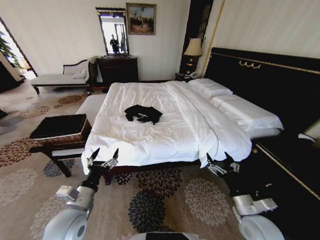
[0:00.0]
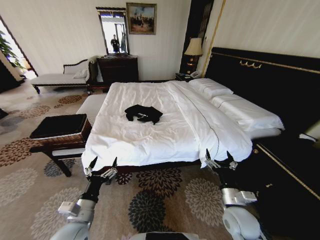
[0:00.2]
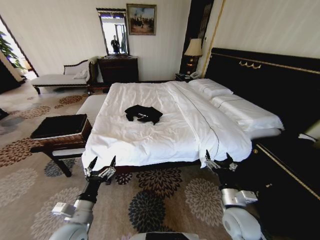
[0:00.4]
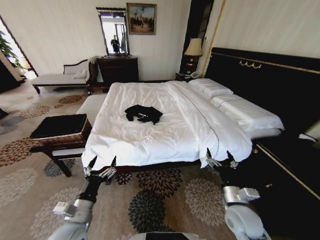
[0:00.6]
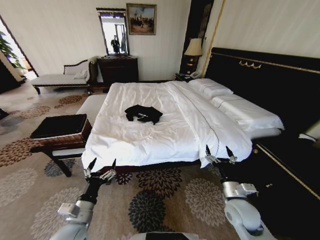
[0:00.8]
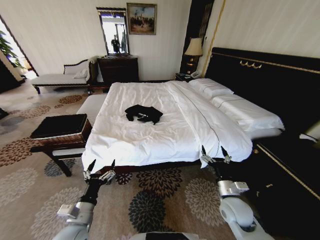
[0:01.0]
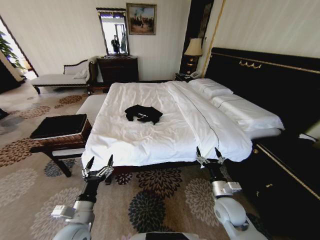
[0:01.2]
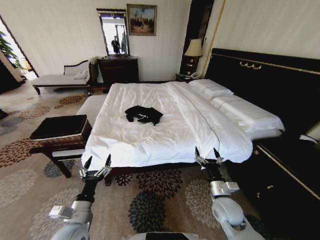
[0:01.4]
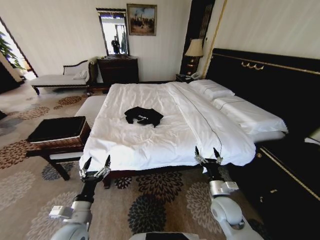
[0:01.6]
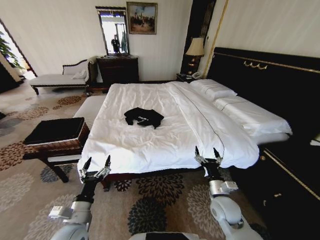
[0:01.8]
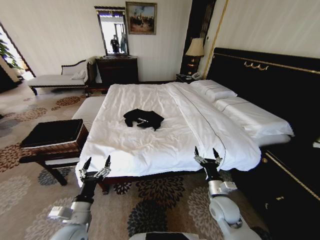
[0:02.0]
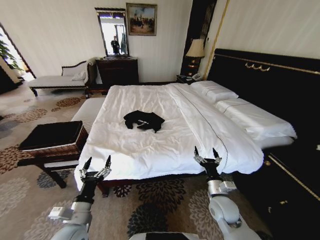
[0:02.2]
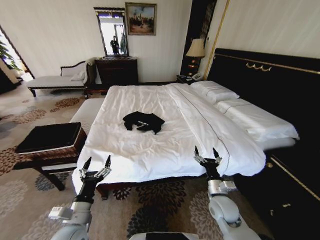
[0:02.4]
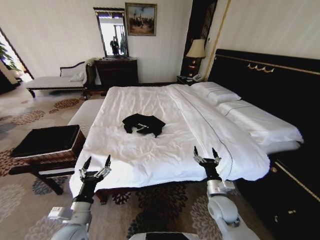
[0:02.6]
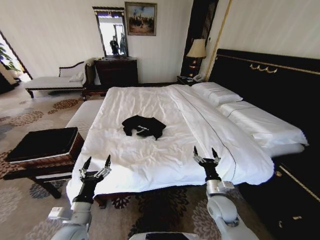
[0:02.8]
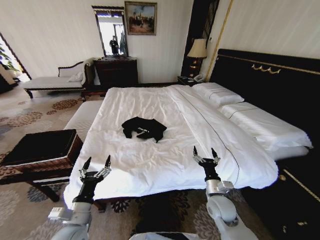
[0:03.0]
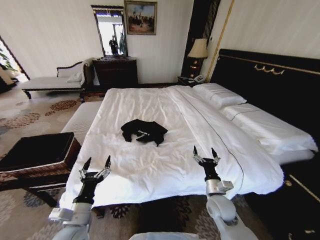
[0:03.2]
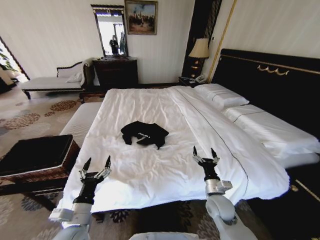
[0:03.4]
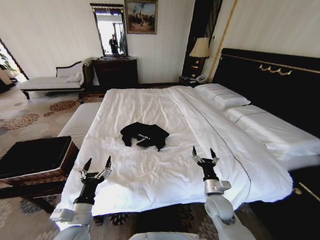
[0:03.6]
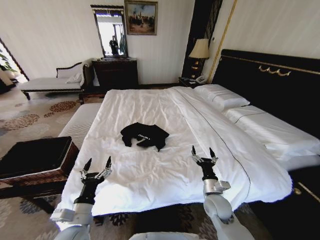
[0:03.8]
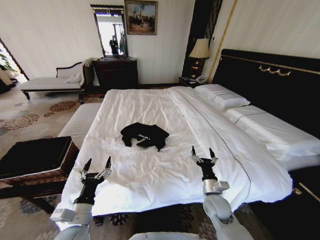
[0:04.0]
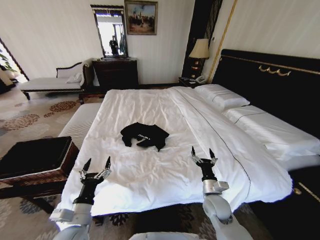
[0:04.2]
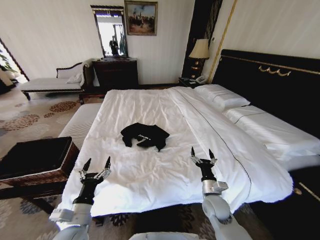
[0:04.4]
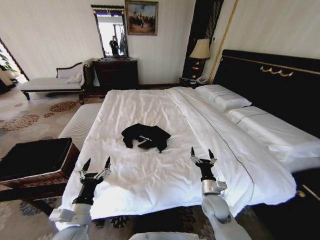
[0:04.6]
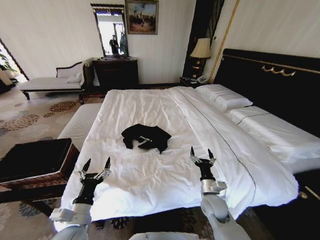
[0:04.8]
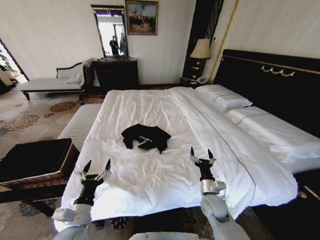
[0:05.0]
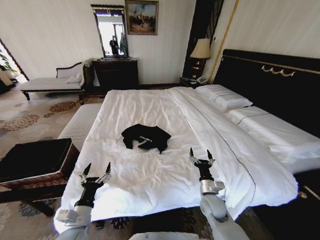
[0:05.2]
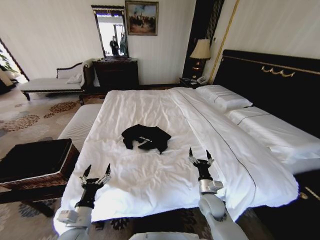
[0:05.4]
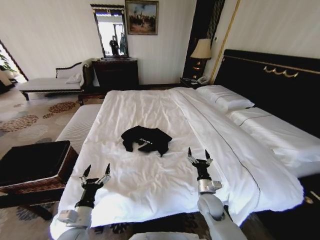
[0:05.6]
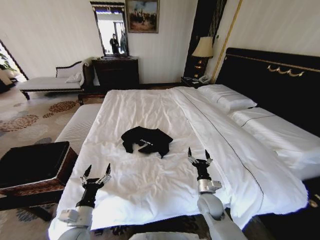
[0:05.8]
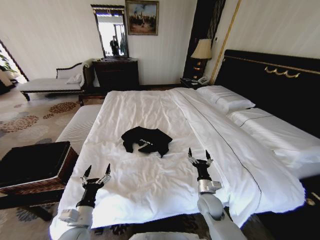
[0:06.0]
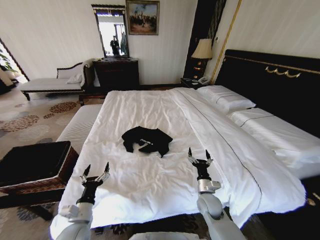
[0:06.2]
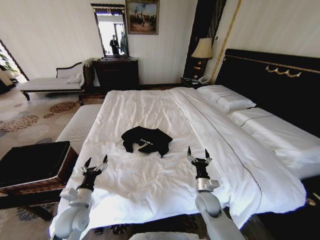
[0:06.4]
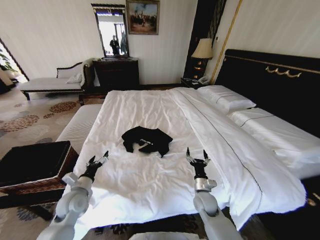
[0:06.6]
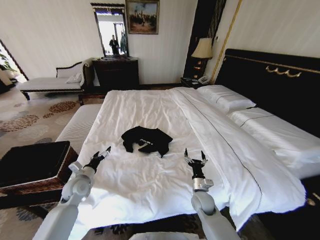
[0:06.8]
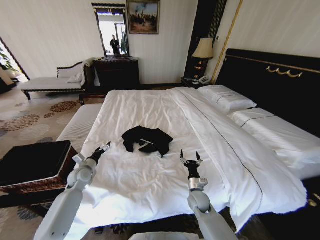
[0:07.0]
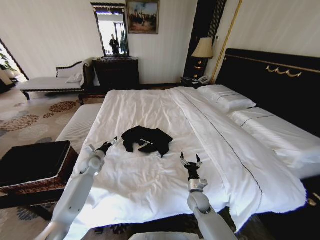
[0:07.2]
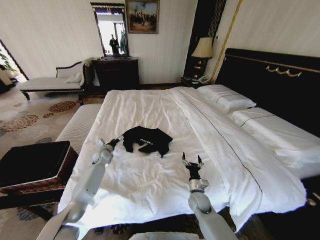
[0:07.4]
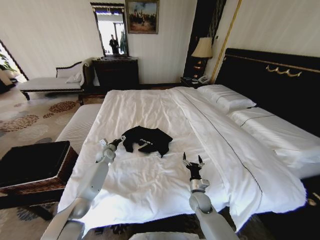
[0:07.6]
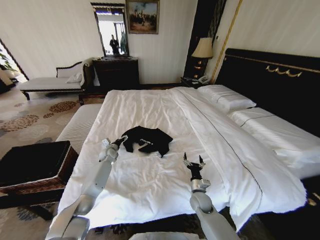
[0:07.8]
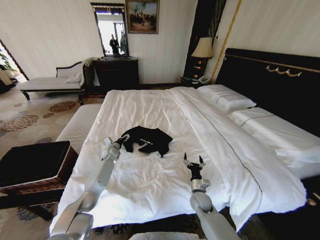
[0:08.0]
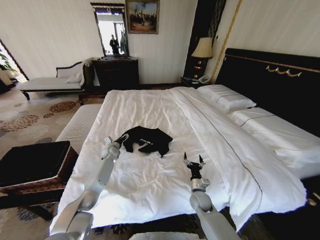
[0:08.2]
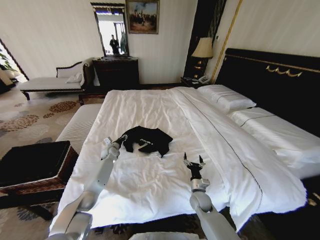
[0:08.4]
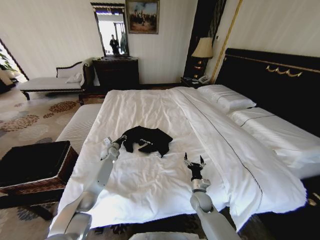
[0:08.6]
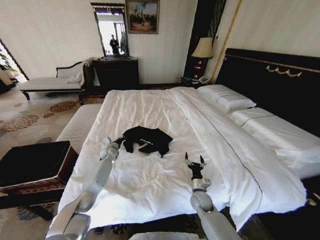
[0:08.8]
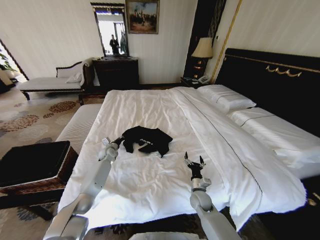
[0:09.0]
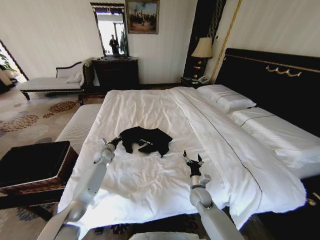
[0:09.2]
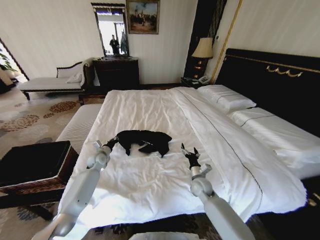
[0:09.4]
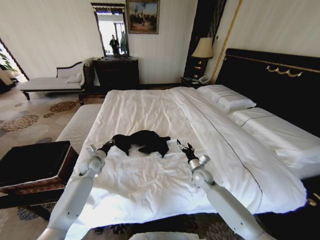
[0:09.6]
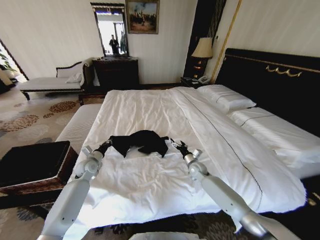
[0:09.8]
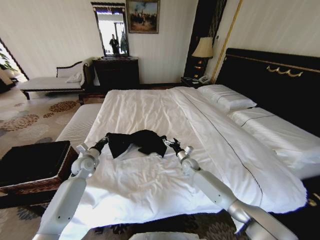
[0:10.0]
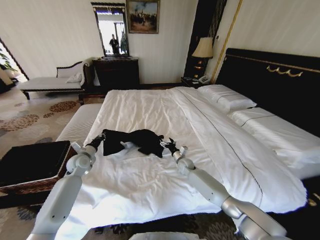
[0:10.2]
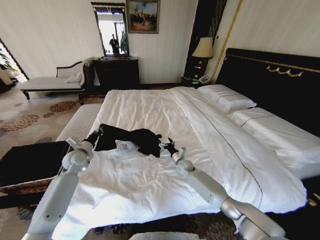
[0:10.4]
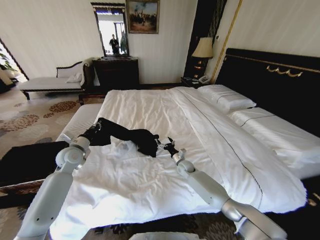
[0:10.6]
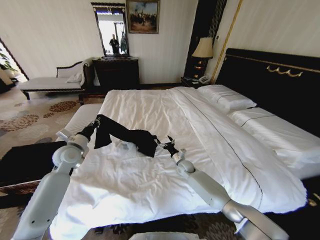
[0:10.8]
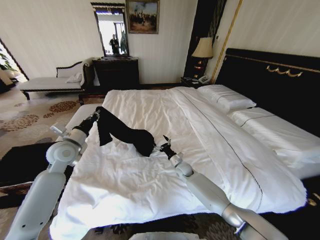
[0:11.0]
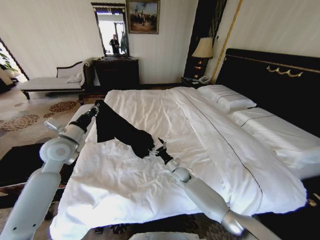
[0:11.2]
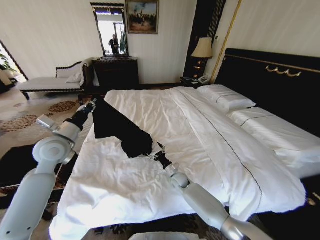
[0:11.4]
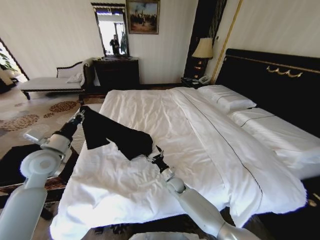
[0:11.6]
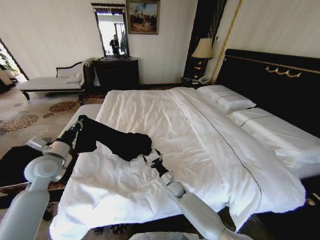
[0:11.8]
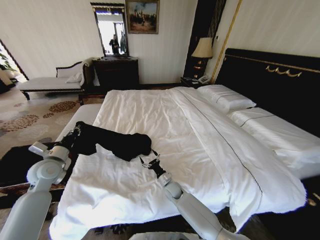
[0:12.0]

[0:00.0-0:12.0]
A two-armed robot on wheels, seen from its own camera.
Task of the whole recording: Fold the clothes on the bed and place them into the basket.
0:06.0 to 0:07.6: The right gripper moves downward, about 5 cm. Meanwhile the left gripper travels forward by approximately 40 cm.
0:07.6 to 0:09.0: The left gripper closes up.
0:09.0 to 0:10.4: The right gripper goes some 20 cm forward. Meanwhile the left gripper is displaced upward, backward and to the left by some 20 cm.
0:10.4 to 0:12.0: The right gripper shifts approximately 15 cm backward, to the left and downward, while the left gripper is displaced backward and upward by approximately 10 cm.

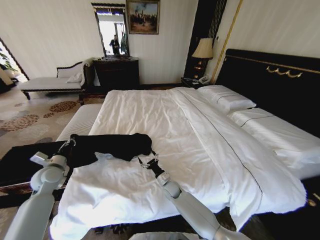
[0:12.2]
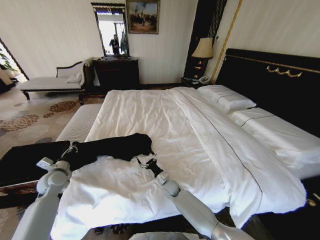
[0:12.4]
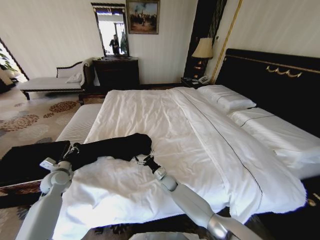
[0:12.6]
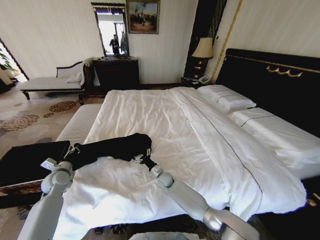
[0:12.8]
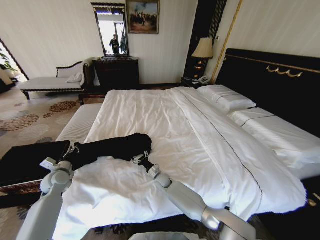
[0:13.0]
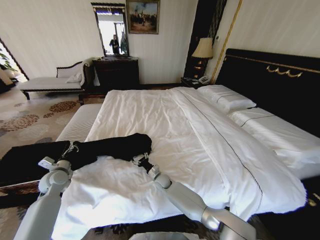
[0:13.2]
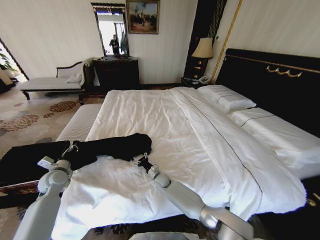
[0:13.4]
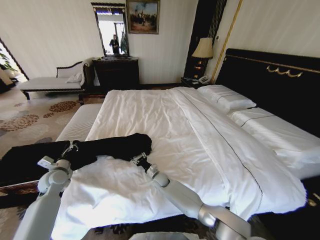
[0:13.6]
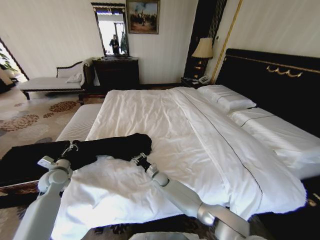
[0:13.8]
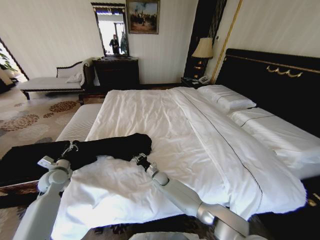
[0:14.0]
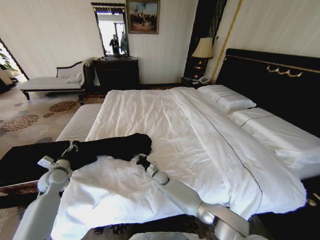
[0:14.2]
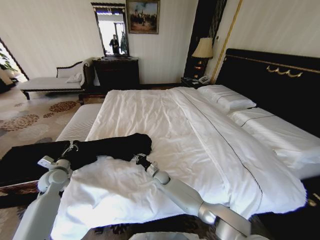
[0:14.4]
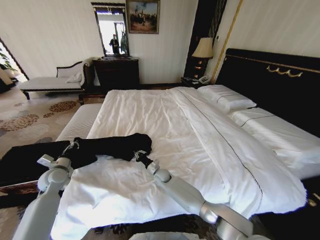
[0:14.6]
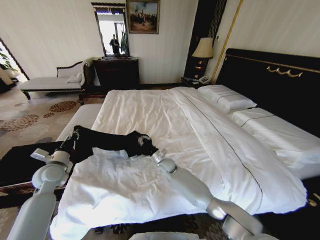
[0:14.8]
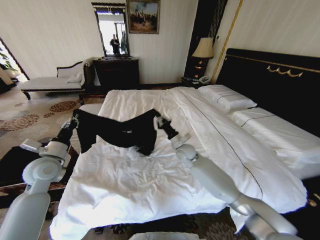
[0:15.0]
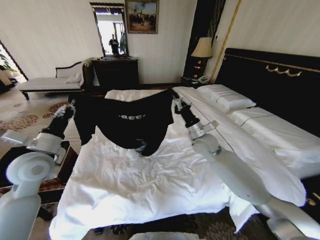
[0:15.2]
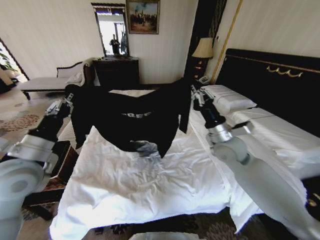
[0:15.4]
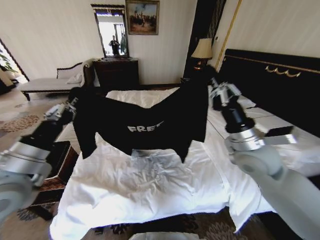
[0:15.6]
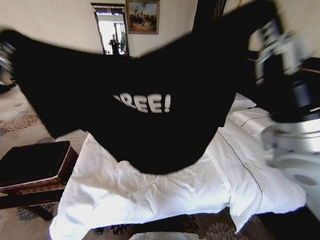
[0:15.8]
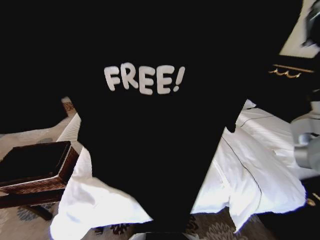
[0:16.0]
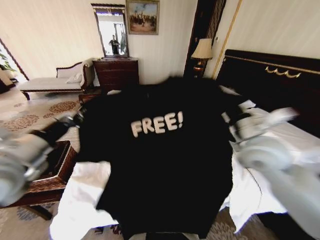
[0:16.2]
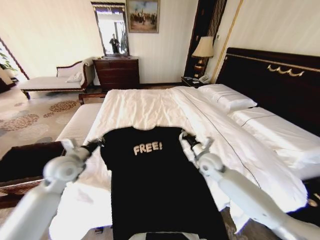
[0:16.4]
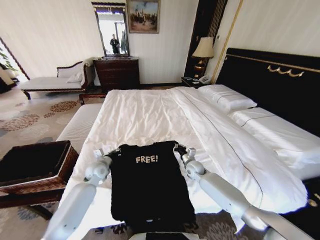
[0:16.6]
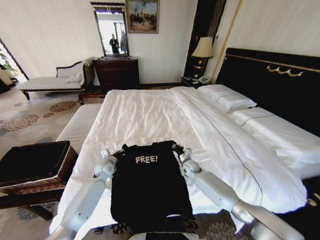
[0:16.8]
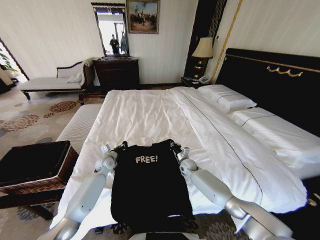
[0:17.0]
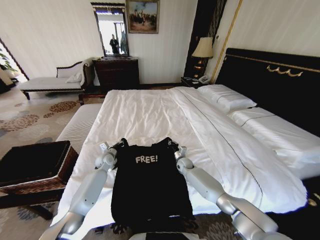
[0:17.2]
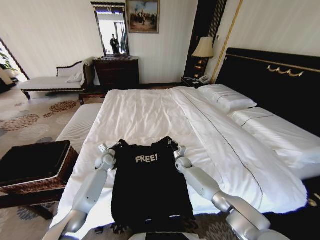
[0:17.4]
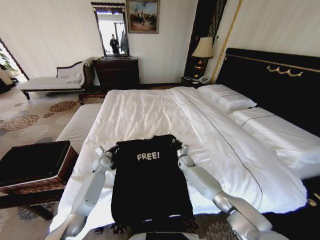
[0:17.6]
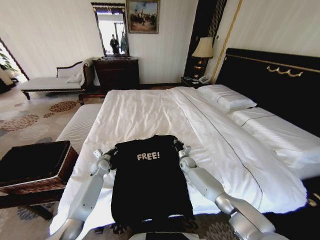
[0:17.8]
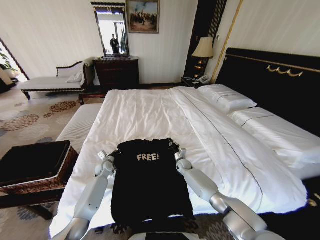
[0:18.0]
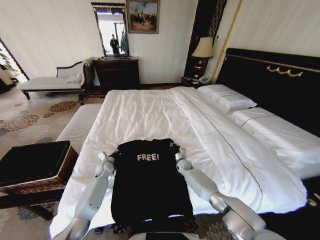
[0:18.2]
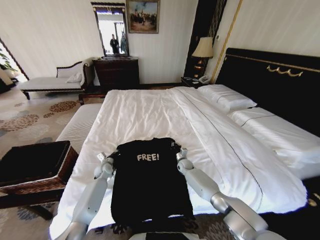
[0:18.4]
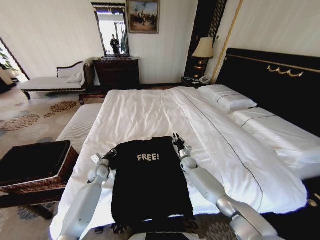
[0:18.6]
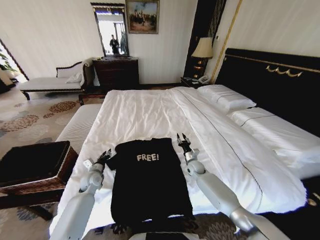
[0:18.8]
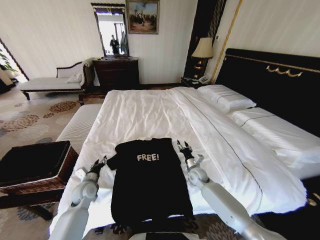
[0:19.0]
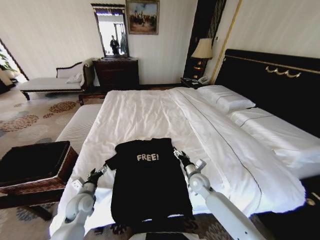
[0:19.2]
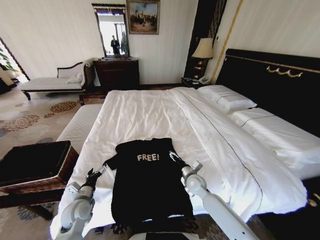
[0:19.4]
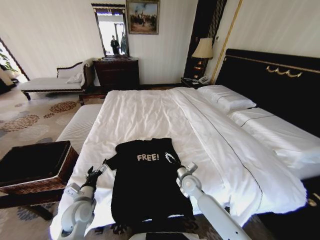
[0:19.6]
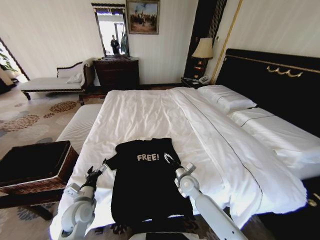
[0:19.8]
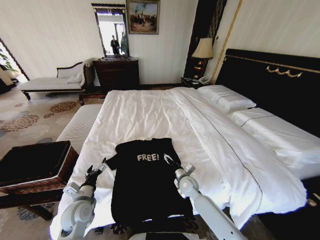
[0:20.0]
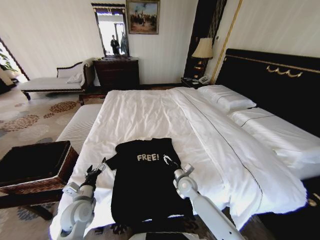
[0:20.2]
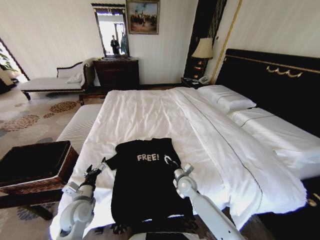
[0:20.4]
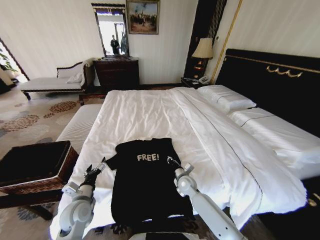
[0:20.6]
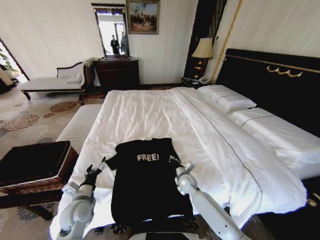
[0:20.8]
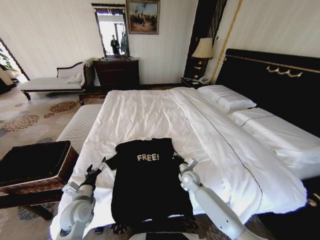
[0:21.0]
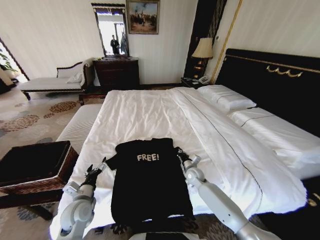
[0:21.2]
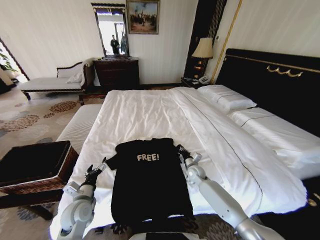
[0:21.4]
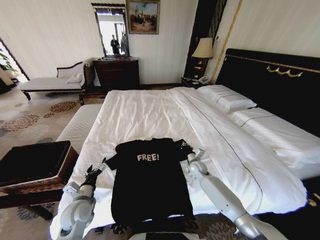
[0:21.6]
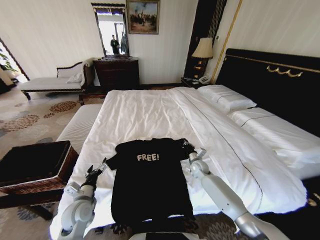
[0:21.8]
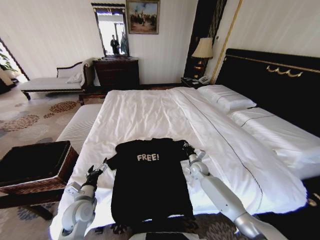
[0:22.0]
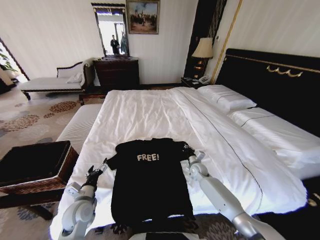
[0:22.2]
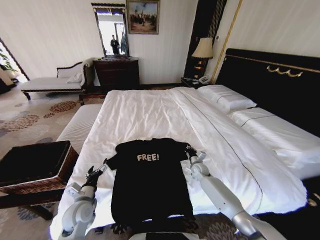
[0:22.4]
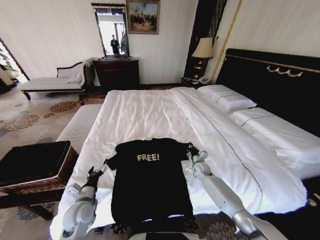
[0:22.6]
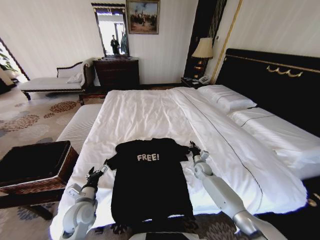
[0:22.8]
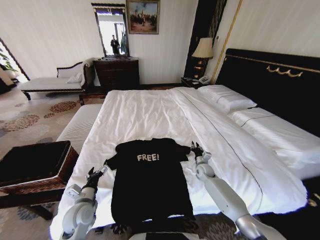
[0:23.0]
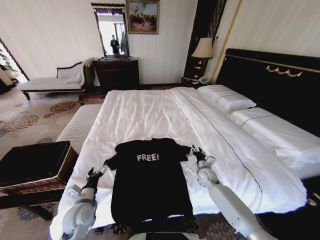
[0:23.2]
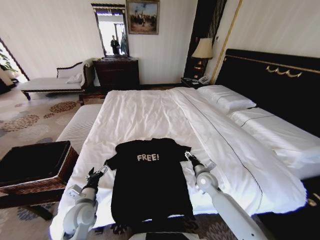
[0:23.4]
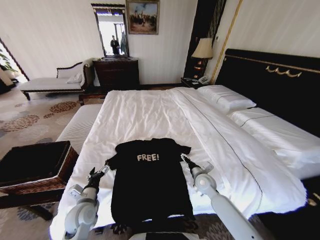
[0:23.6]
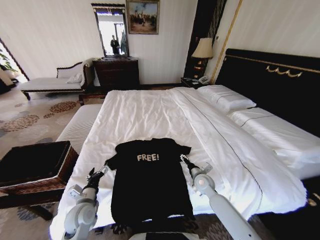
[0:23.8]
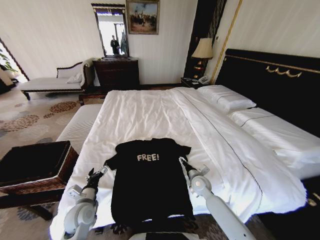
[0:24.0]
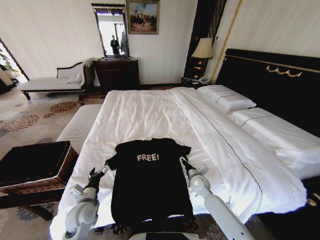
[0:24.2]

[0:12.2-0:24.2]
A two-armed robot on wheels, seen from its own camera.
Task of the whole recording: Fold the clothes on the bed and place them into the basket.
0:12.2 to 0:13.8: The right gripper moves to the left and forward, roughly 10 cm, and closes its fingers.
0:13.8 to 0:15.2: The right gripper heads upward and to the right, covering about 35 cm, and closes its fingers; the left gripper shifts some 20 cm upward and to the right.
0:15.2 to 0:16.6: The left gripper is displaced downward and forward by approximately 25 cm. The right gripper shifts roughly 20 cm downward.
0:16.6 to 0:18.2: Both grippers move downward and forward, approximately 10 cm.
0:18.2 to 0:19.8: The right gripper is displaced backward and upward by some 20 cm, and opens up. The left gripper moves backward, roughly 25 cm, and opens its fingers.
0:19.8 to 0:21.2: The right gripper is displaced forward by approximately 5 cm, and closes.
0:21.2 to 0:22.6: The right gripper moves to the right and forward, roughly 10 cm.
0:22.6 to 0:24.2: The right gripper moves backward and to the left, approximately 10 cm, and opens its fingers.
